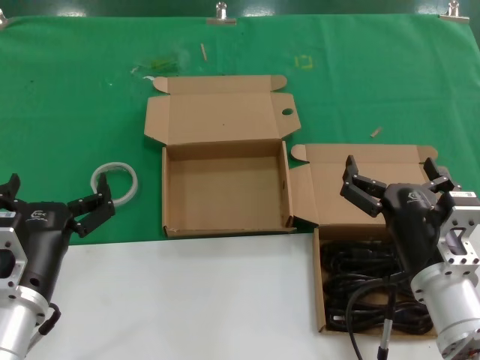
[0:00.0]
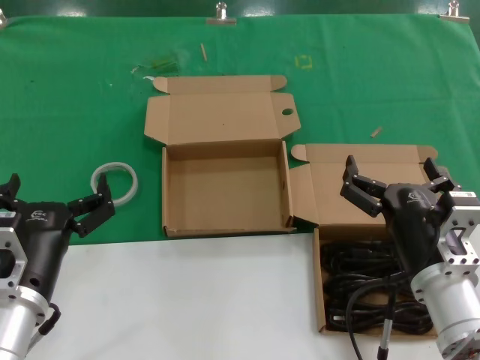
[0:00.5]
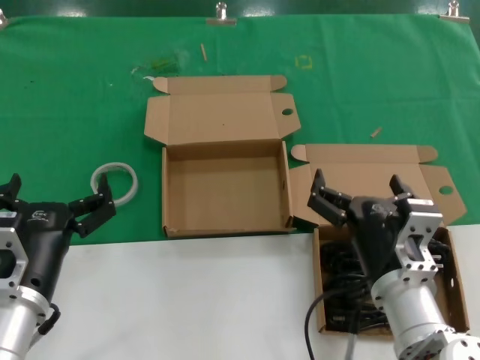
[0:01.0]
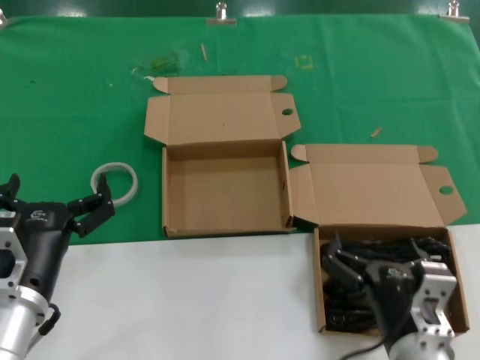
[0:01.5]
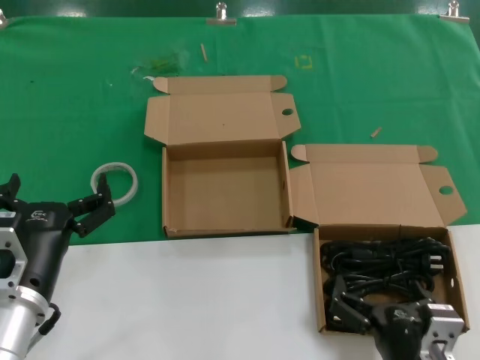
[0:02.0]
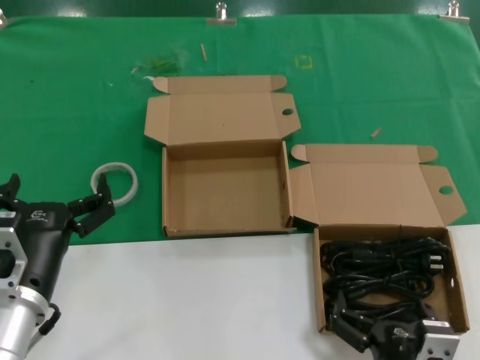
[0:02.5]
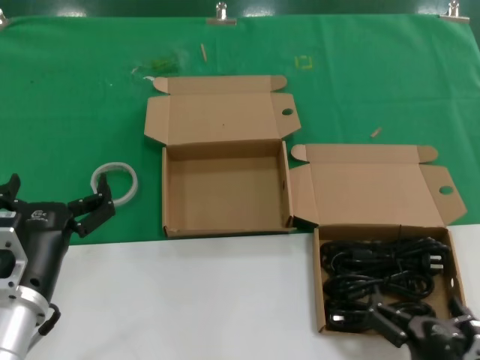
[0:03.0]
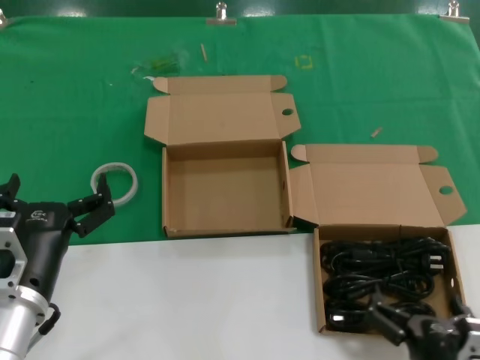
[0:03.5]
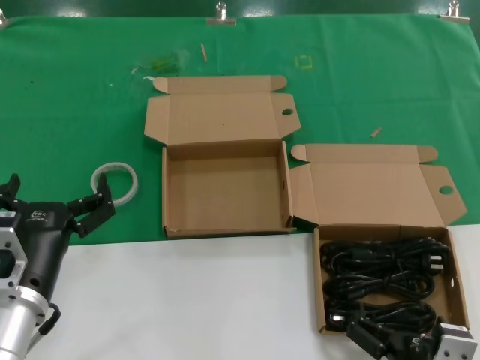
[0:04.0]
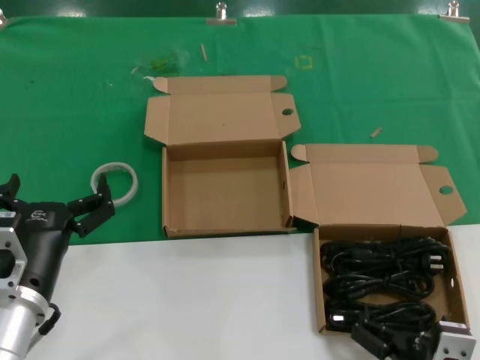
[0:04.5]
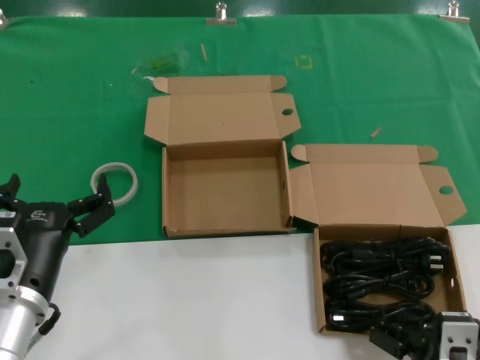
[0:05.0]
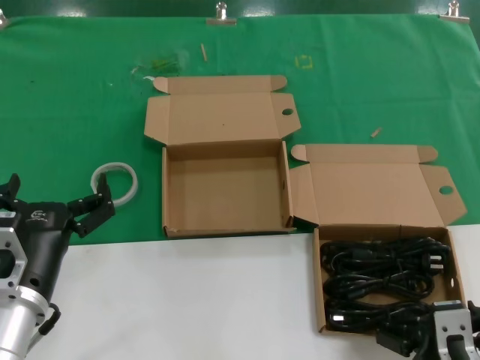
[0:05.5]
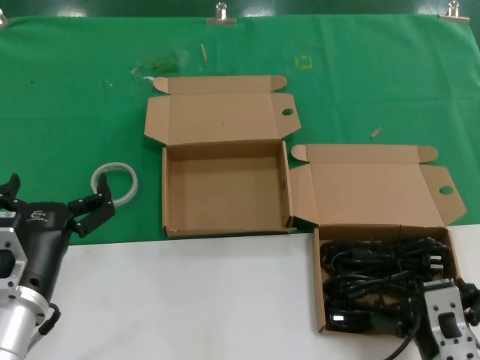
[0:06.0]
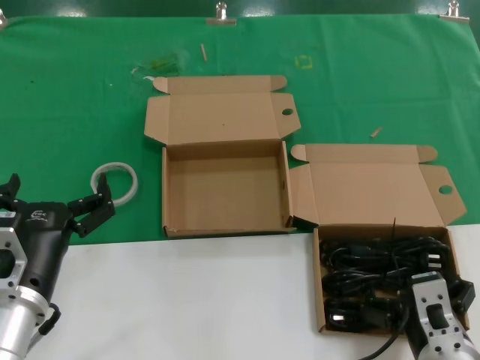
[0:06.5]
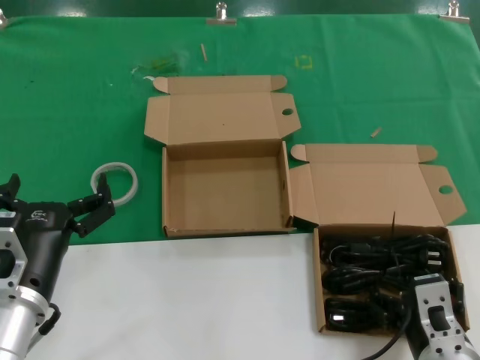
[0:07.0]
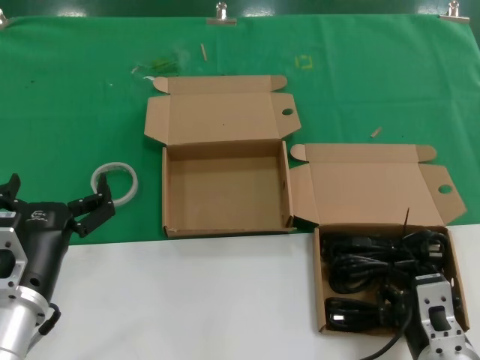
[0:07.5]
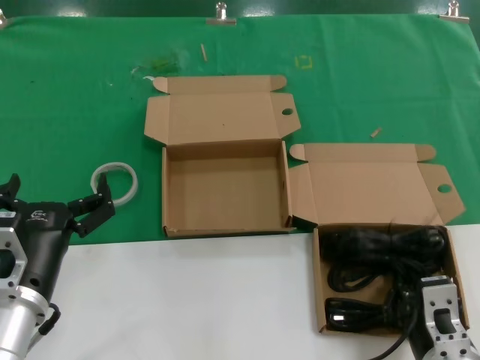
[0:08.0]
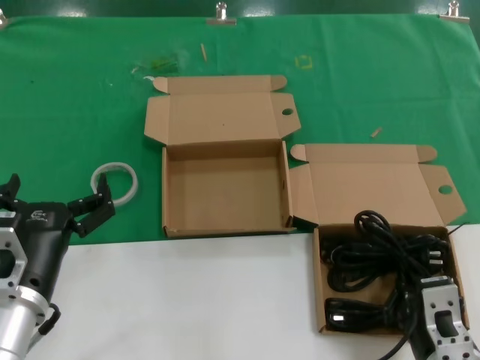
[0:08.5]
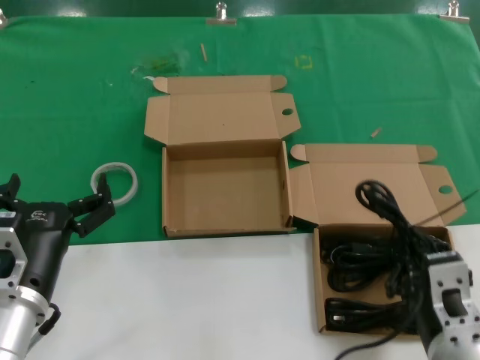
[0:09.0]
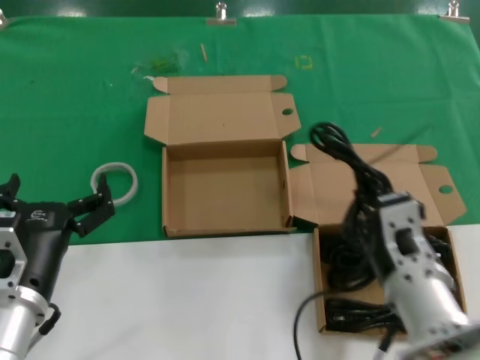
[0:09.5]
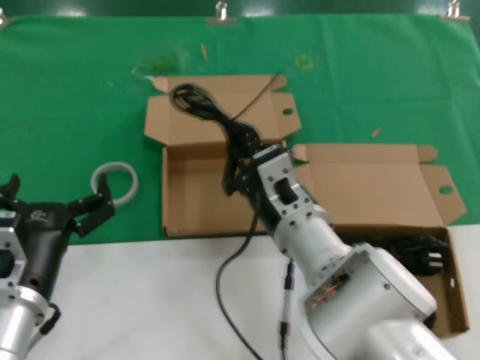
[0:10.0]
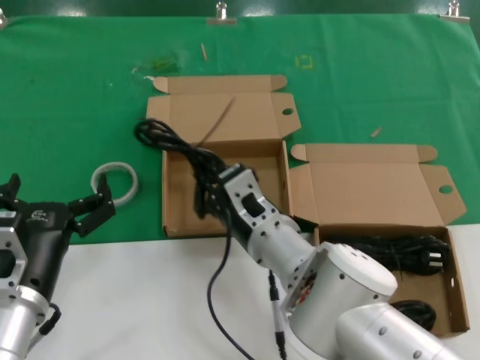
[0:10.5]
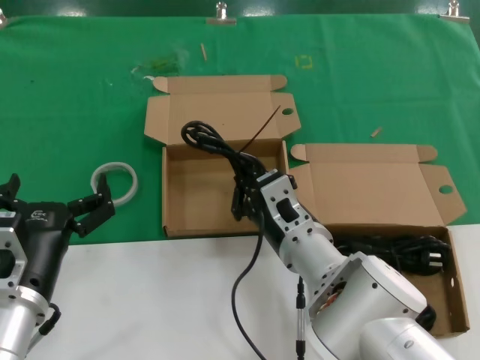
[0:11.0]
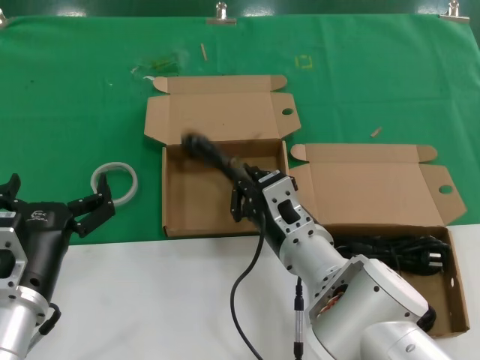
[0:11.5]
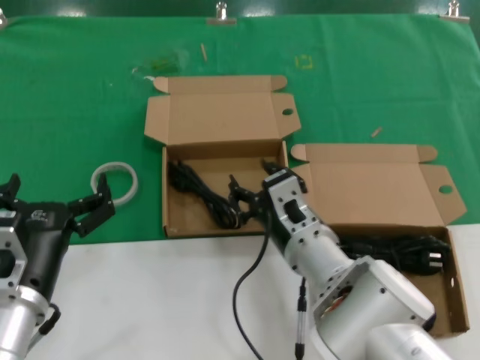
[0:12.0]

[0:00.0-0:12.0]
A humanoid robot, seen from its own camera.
Task of the whole recording: take the parts from the box containing them and put them into an empty box.
Step, 0:00.0 to 0:07.5: Grasp the data cable.
Step, 0:08.0 to 0:11.5: Place the data cable in the another box.
0:00.0 to 0:02.0: The right hand heads backward and downward, covering about 10 cm.
0:02.0 to 0:04.0: The hands make only small movements.
0:04.0 to 0:06.0: The right hand travels forward by some 5 cm.
0:06.0 to 0:08.0: The hands move only a little.
0:08.0 to 0:10.0: The right hand moves to the left, forward and upward, about 20 cm.
0:10.0 to 0:12.0: The hands move only a little.

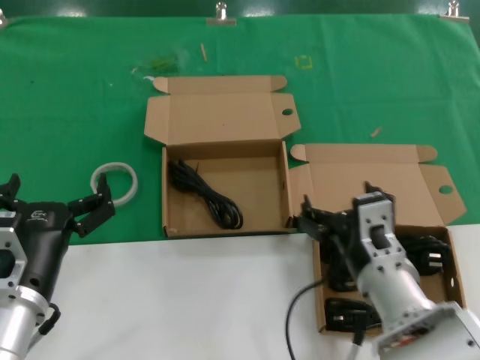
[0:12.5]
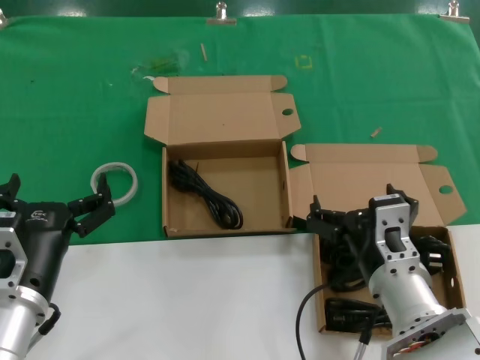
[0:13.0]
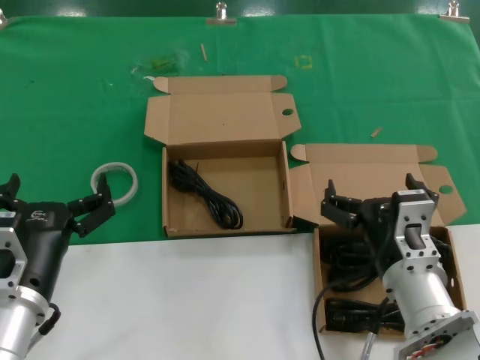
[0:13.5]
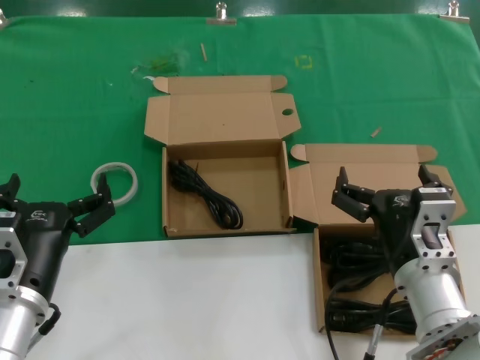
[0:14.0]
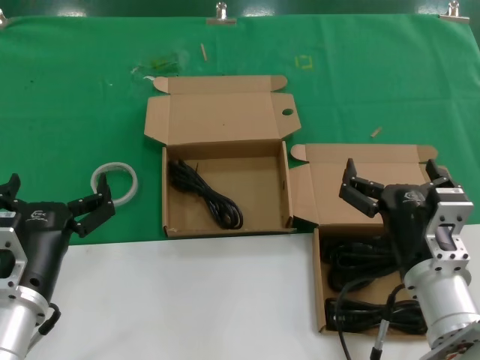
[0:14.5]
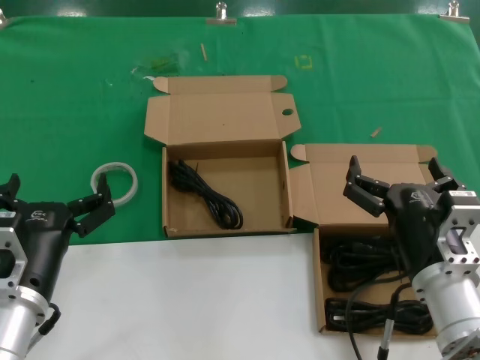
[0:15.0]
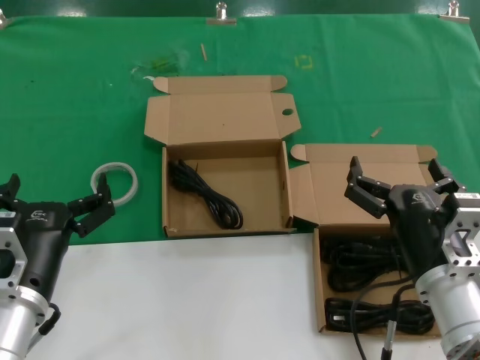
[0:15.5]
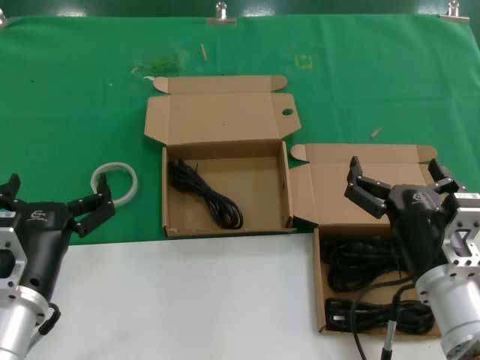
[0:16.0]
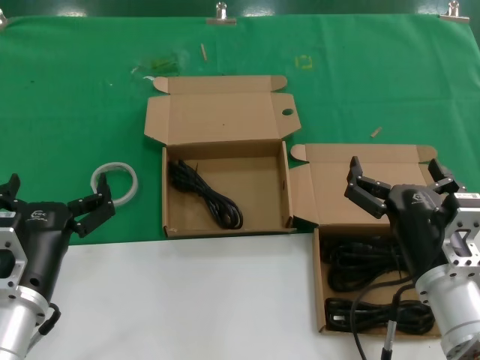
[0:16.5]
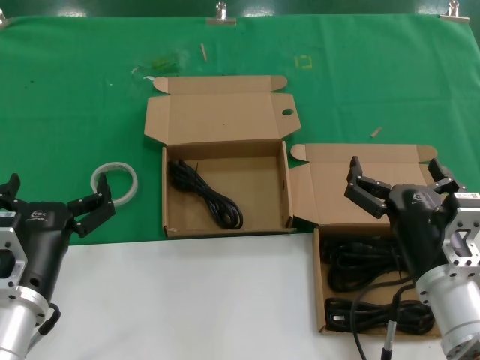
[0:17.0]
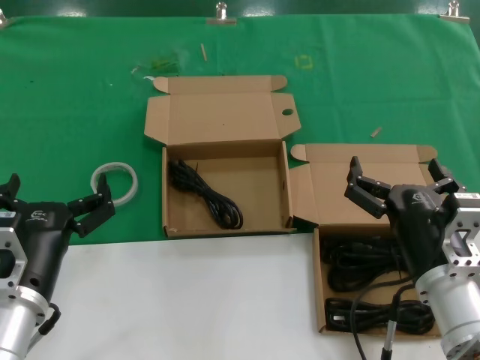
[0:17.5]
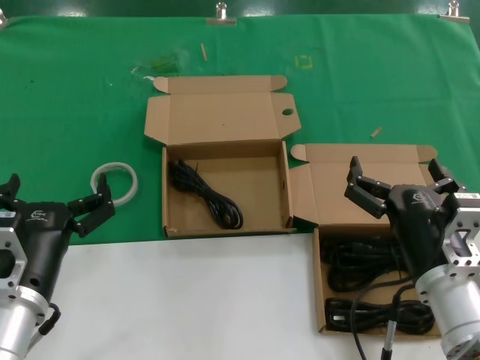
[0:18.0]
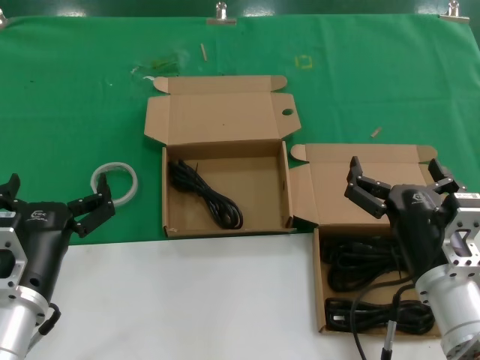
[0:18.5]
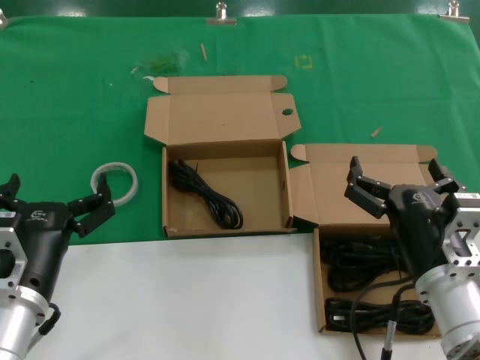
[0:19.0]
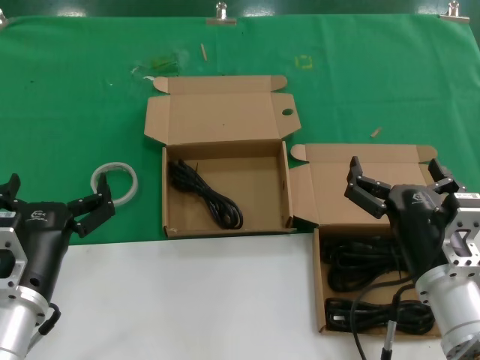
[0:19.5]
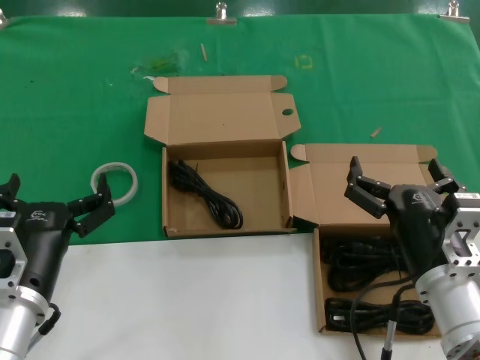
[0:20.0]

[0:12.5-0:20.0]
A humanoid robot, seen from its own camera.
Task of the whole recording: take the parts from the box containing them and put them into an empty box.
0:12.5 to 0:14.5: The right hand shifts by roughly 5 cm.
0:14.5 to 0:16.5: There are only small adjustments of the hands.
0:16.5 to 0:20.0: The two hands keep their place.

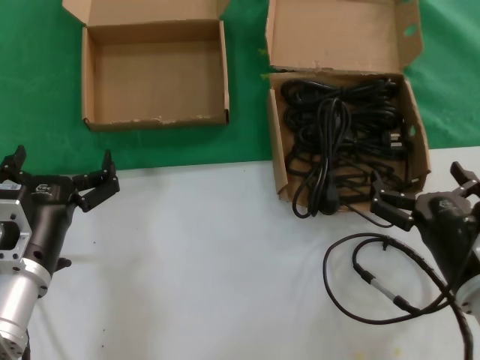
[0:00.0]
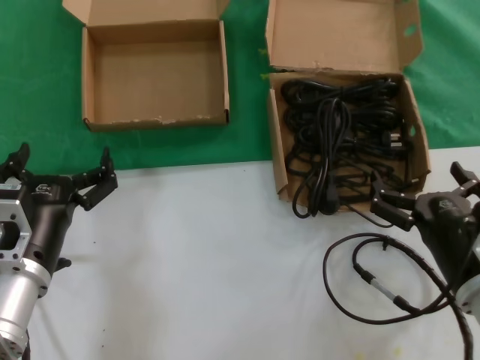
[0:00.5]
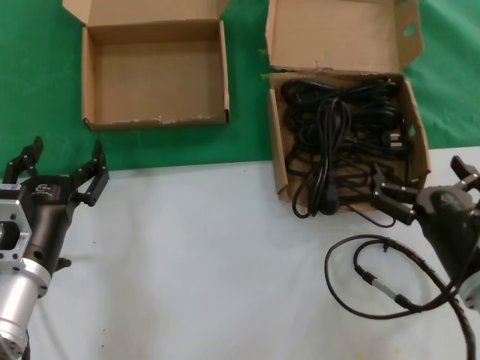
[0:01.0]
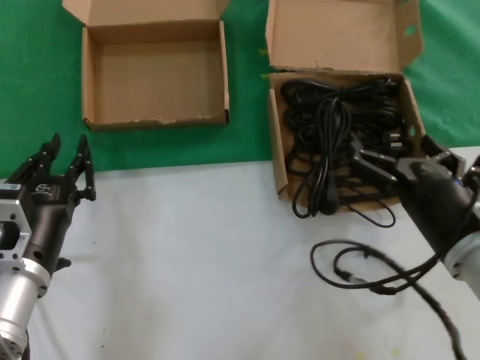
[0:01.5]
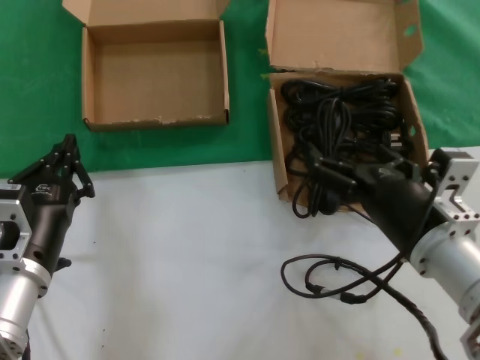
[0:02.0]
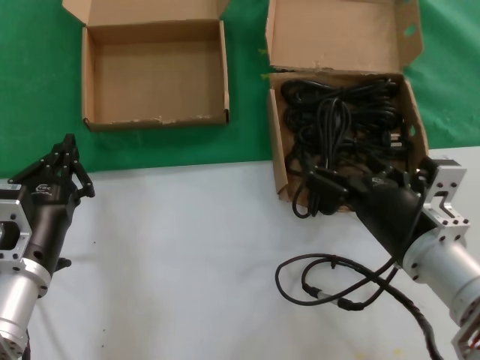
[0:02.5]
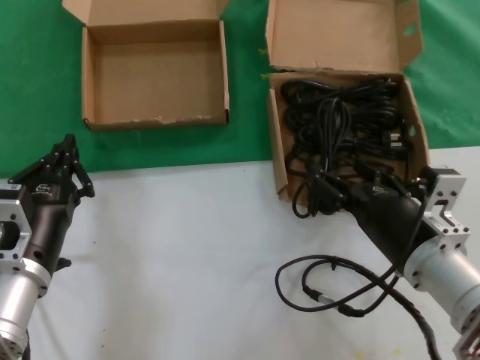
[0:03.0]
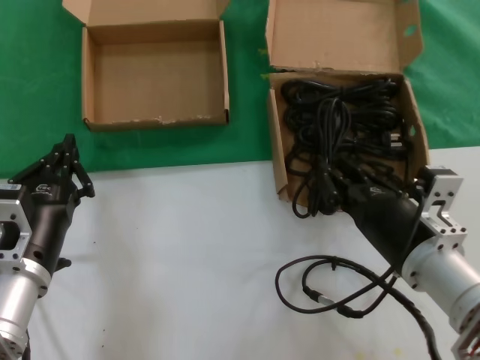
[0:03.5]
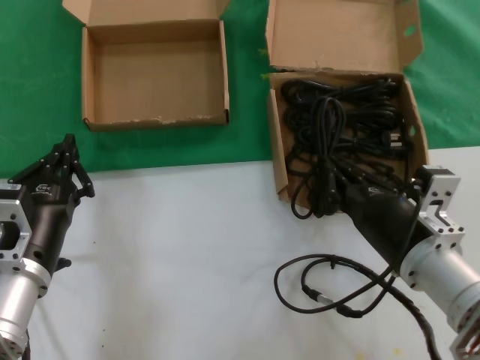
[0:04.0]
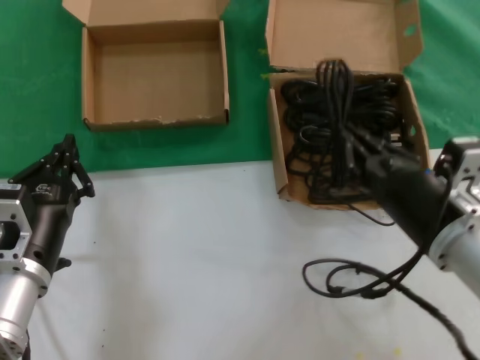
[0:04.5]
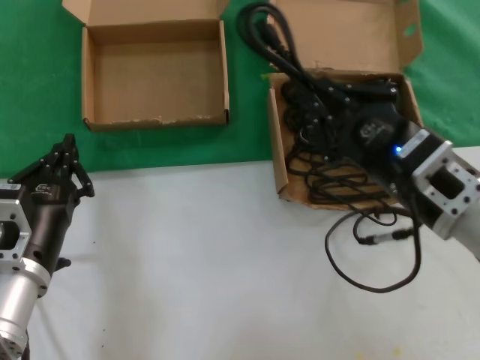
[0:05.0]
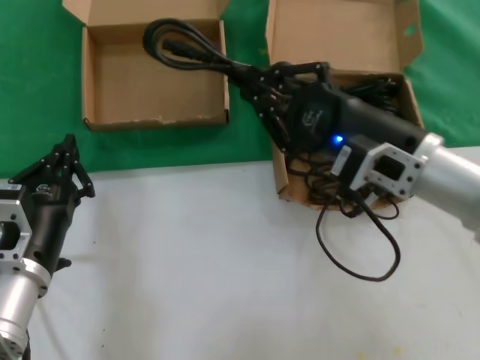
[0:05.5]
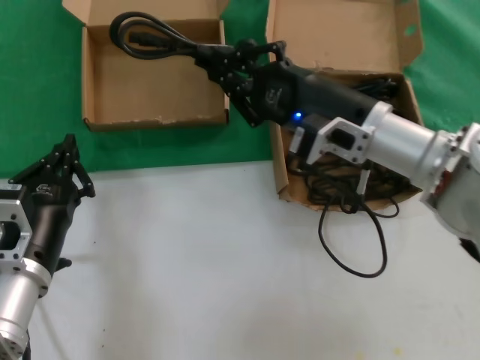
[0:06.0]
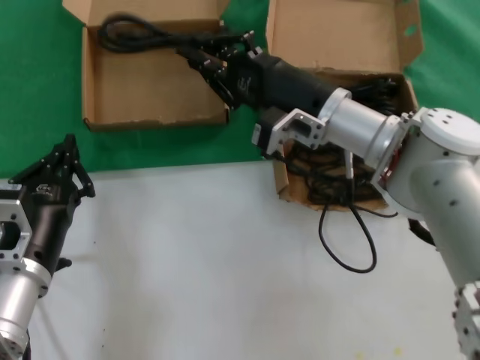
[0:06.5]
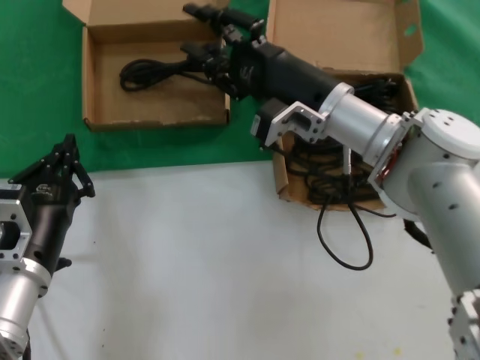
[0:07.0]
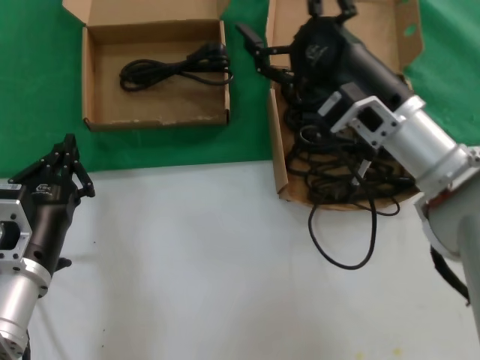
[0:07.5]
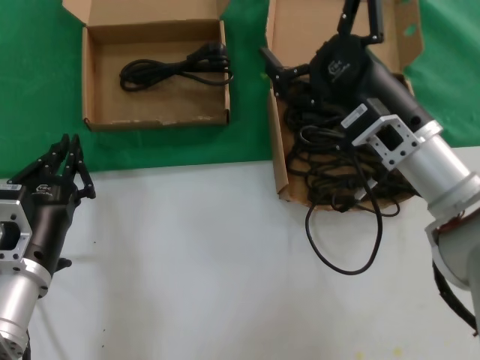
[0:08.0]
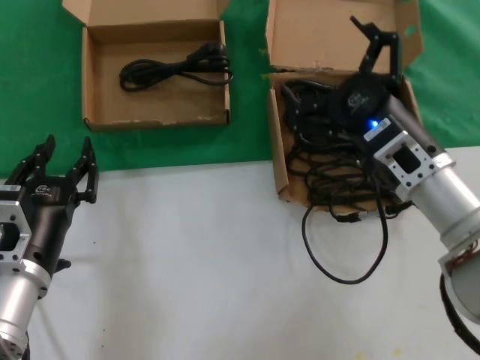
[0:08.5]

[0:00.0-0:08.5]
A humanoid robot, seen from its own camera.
Task of the whole recording: take the parts from the box containing them and put them into an empty box.
Step, 0:00.0 to 0:03.5: Grasp the data cable.
Step, 0:04.0 to 0:06.5: Place the data cable in the another box.
0:00.0 to 0:02.0: The right hand shifts roughly 10 cm upward and to the left.
0:02.0 to 0:04.0: The hands stay close to where they were, moving slightly.
0:04.0 to 0:06.5: The right hand shifts roughly 20 cm forward.
0:06.5 to 0:08.5: The right hand moves backward and to the right, roughly 15 cm.
